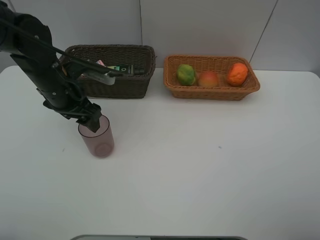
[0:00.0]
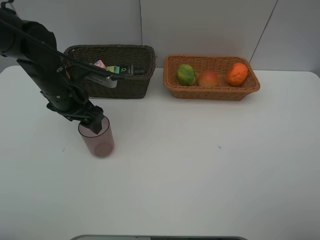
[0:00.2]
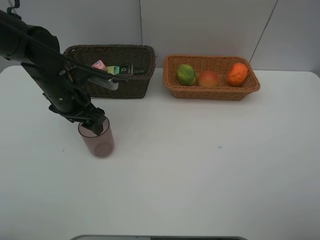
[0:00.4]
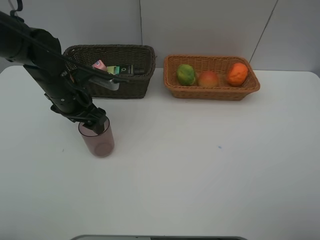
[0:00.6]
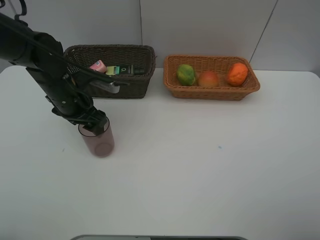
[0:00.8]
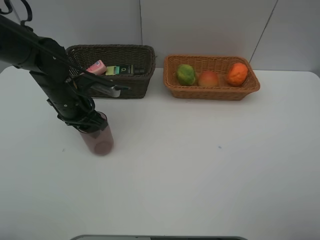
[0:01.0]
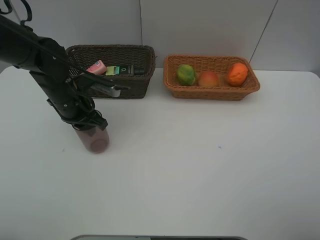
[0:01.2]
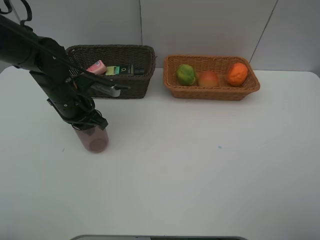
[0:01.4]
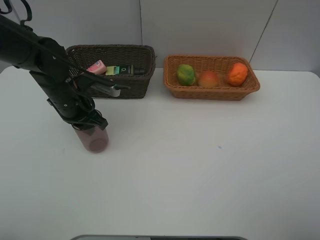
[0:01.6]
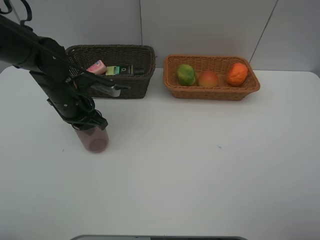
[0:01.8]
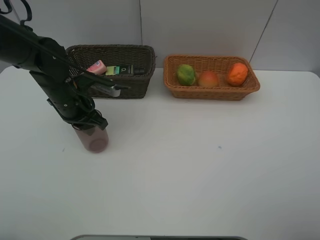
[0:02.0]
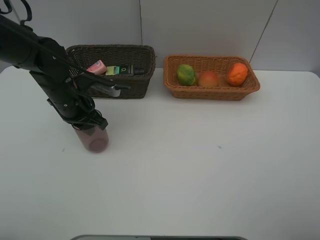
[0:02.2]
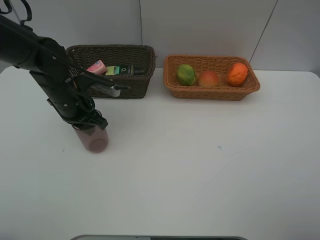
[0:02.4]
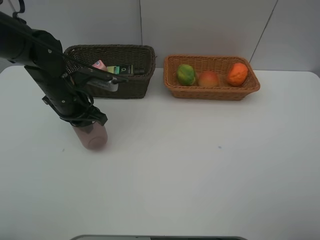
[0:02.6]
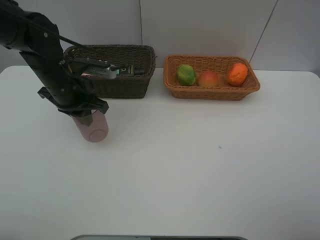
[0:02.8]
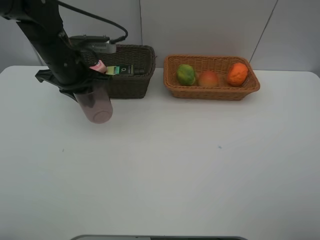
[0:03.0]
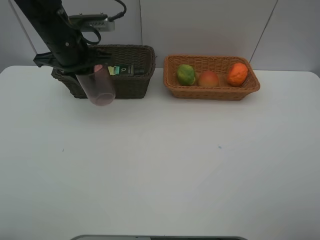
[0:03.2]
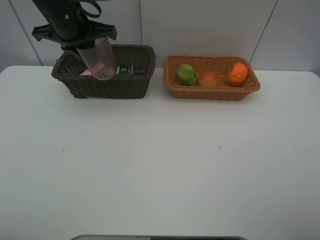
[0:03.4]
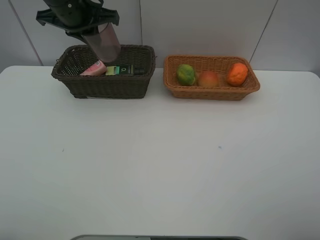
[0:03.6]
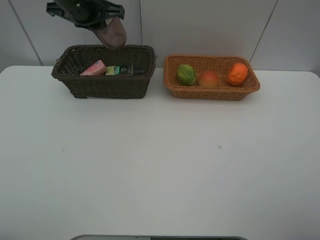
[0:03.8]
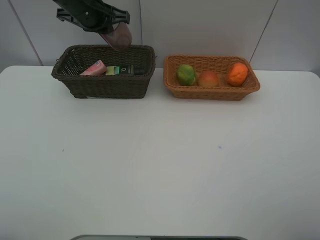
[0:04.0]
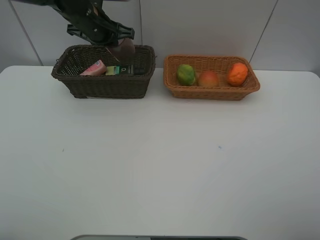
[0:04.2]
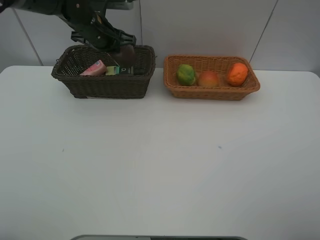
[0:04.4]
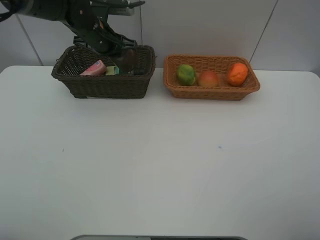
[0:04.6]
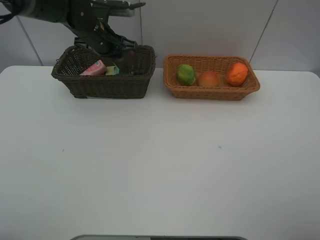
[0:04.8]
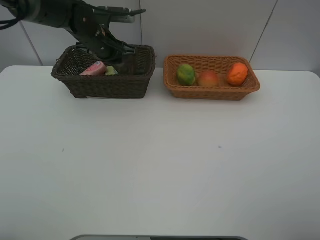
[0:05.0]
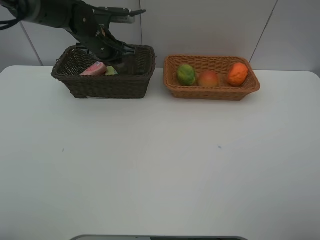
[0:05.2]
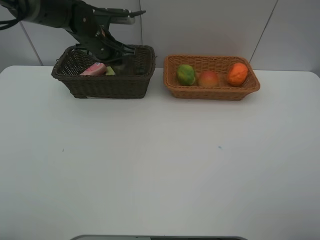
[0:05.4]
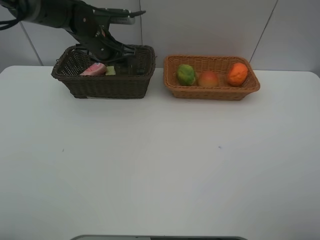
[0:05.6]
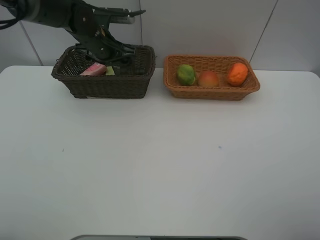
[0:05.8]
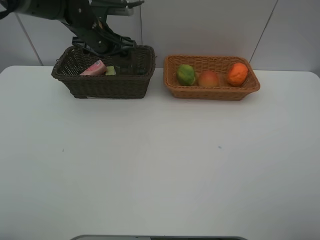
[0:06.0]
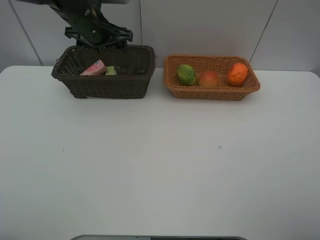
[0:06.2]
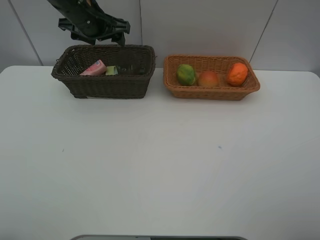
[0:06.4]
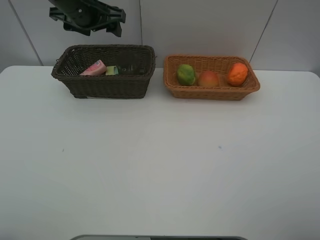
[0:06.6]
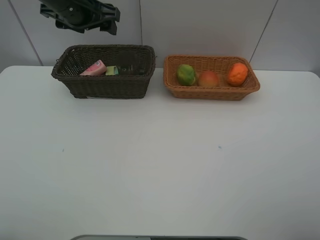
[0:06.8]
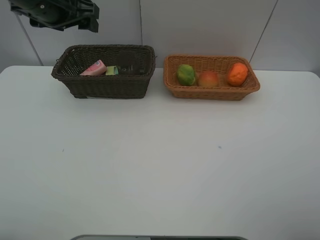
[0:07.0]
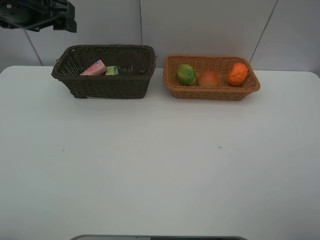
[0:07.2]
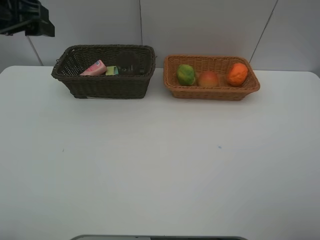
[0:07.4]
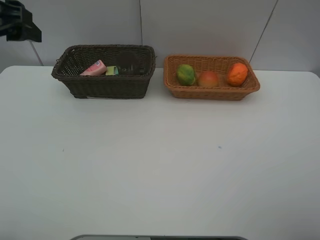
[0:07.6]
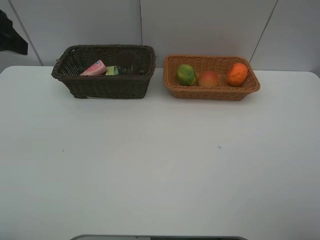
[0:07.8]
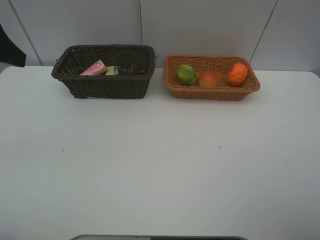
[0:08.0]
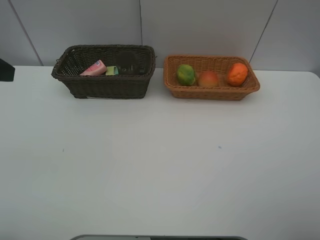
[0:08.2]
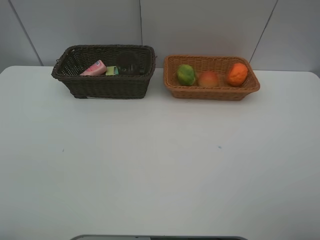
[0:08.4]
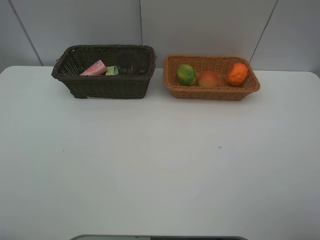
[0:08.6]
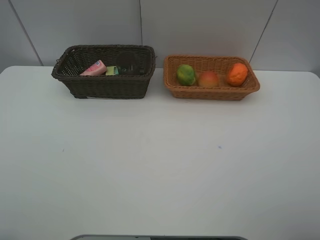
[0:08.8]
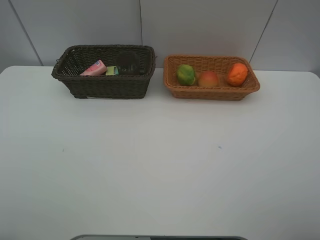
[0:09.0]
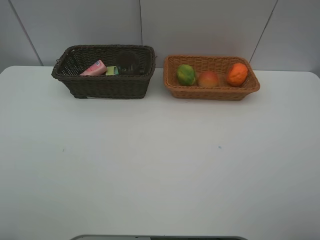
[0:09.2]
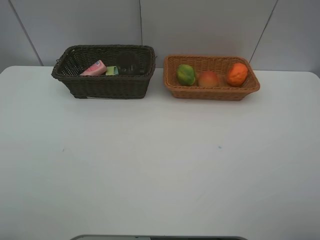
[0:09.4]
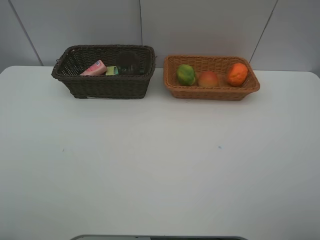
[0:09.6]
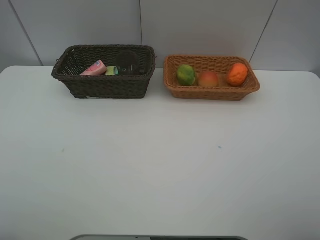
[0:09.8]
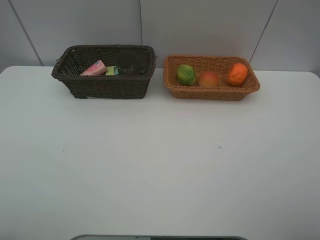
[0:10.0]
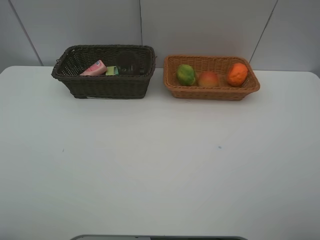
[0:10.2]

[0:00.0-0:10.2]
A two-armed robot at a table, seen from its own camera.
Task of the whole recording: place multiple objects separately in different baskets.
0:00.0 to 0:01.4: The left gripper closes its fingers.
0:01.4 to 0:03.0: The left gripper is displaced upward by roughly 10 cm.
0:03.0 to 0:04.4: The left gripper heads forward, covering some 10 cm.
0:04.4 to 0:05.8: The left gripper opens.
0:05.8 to 0:07.2: The left gripper is displaced upward, backward and to the left by some 20 cm.
0:07.2 to 0:08.8: The left gripper is displaced backward by about 25 cm.

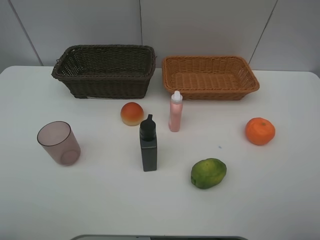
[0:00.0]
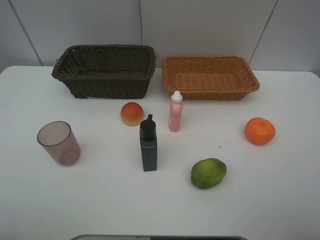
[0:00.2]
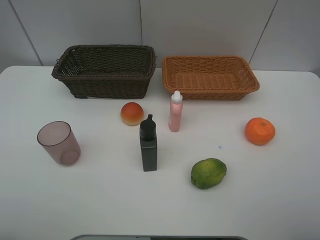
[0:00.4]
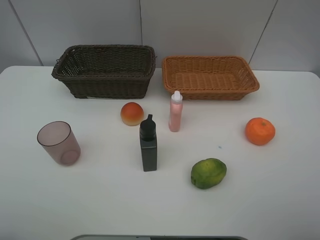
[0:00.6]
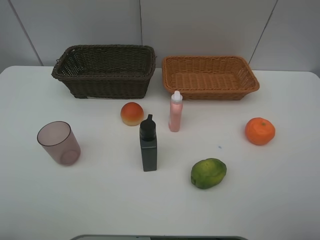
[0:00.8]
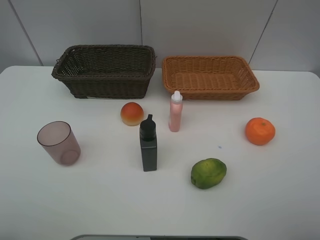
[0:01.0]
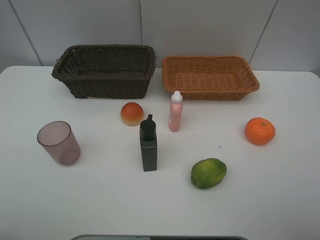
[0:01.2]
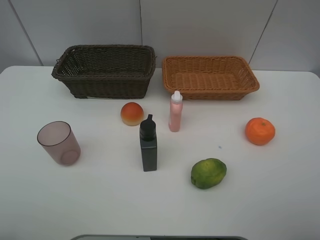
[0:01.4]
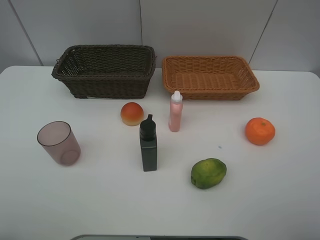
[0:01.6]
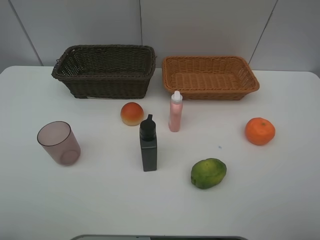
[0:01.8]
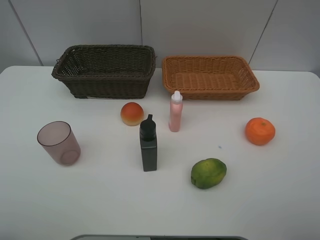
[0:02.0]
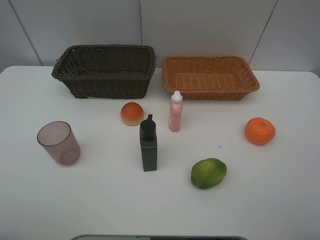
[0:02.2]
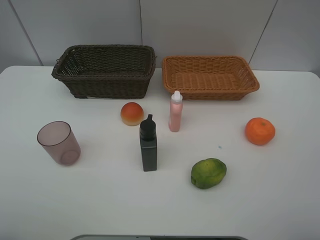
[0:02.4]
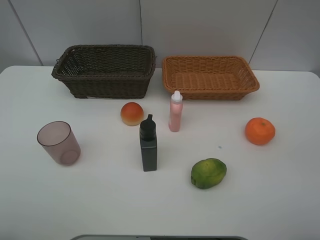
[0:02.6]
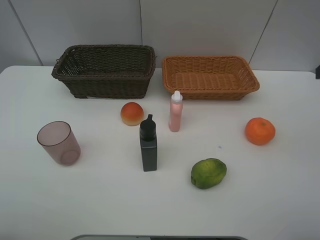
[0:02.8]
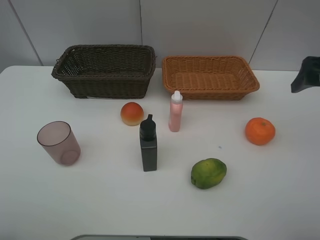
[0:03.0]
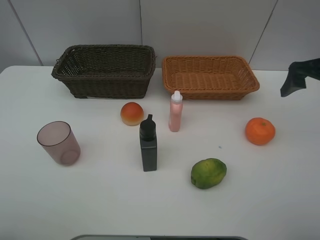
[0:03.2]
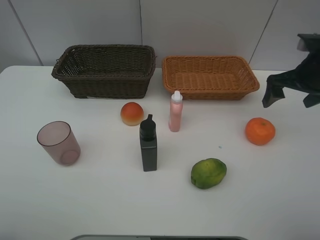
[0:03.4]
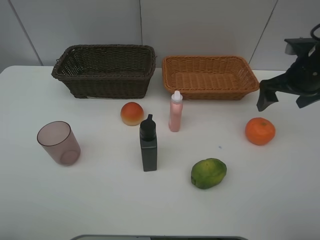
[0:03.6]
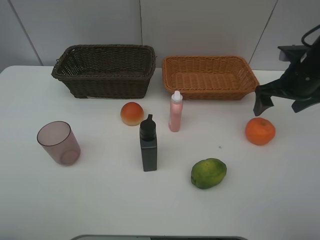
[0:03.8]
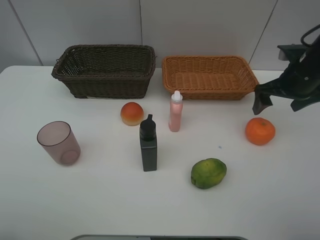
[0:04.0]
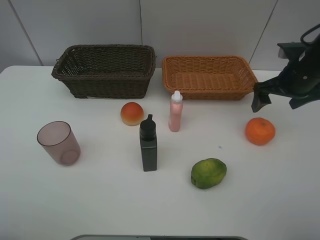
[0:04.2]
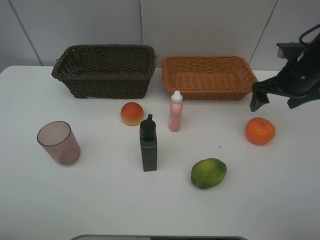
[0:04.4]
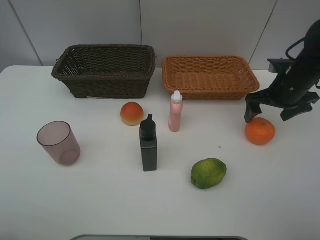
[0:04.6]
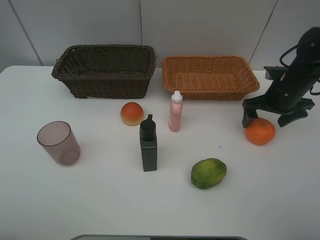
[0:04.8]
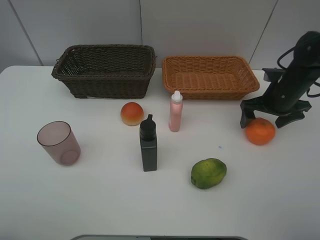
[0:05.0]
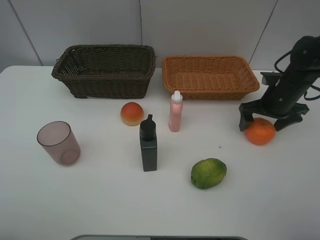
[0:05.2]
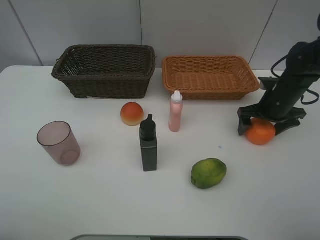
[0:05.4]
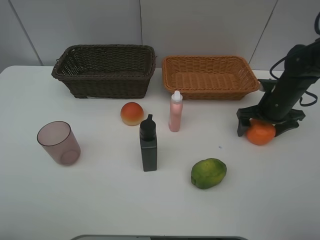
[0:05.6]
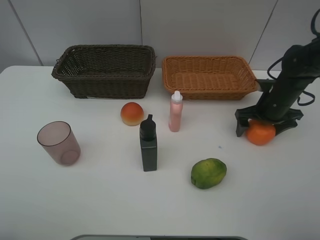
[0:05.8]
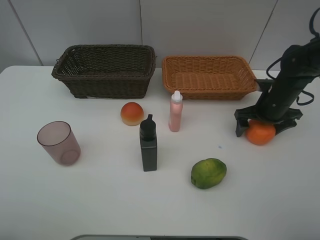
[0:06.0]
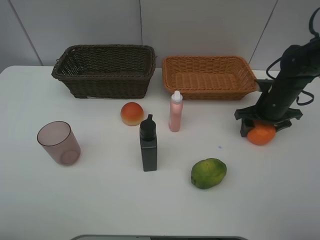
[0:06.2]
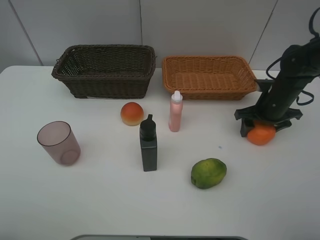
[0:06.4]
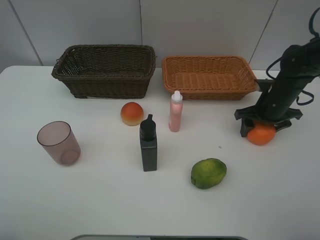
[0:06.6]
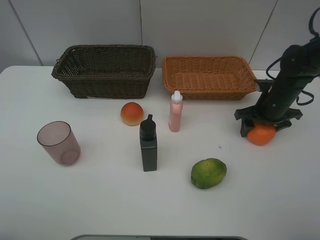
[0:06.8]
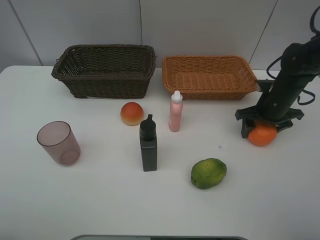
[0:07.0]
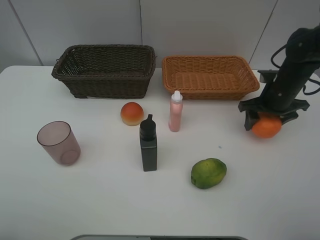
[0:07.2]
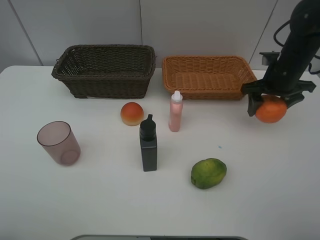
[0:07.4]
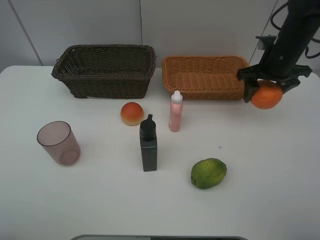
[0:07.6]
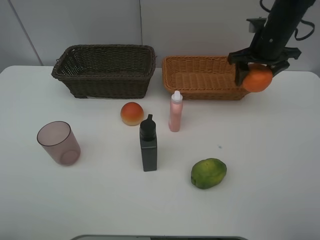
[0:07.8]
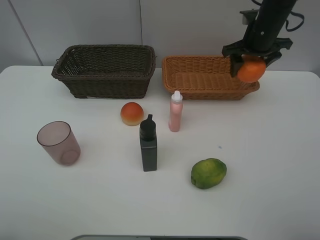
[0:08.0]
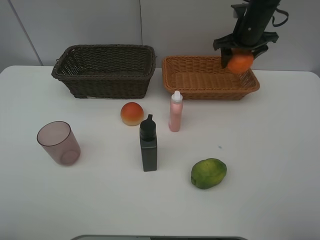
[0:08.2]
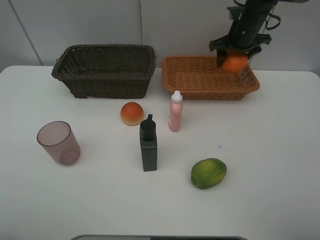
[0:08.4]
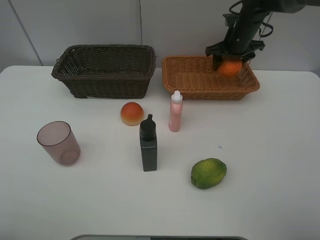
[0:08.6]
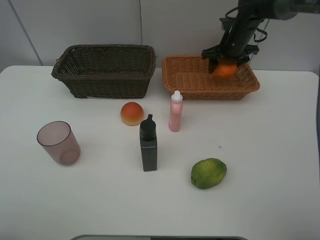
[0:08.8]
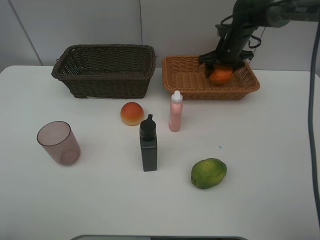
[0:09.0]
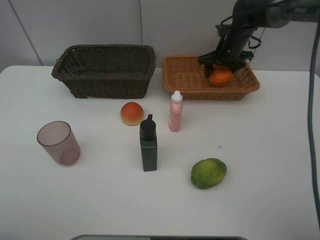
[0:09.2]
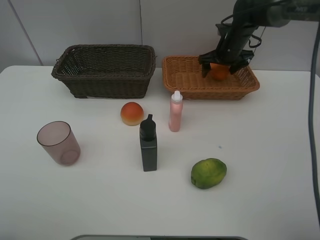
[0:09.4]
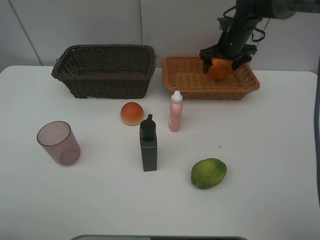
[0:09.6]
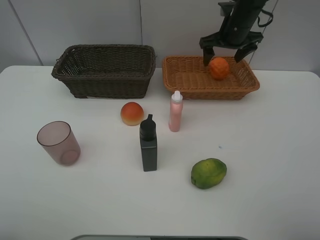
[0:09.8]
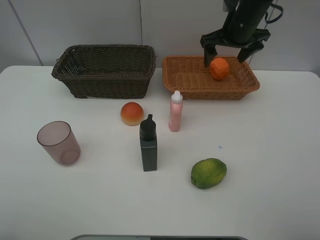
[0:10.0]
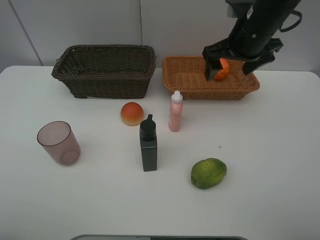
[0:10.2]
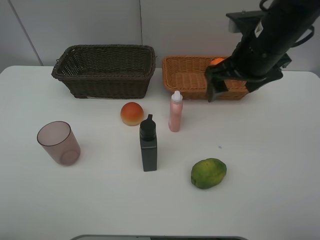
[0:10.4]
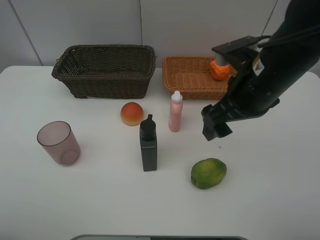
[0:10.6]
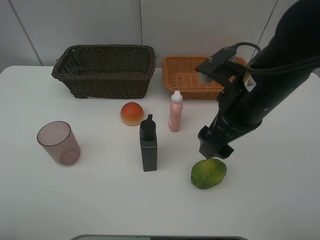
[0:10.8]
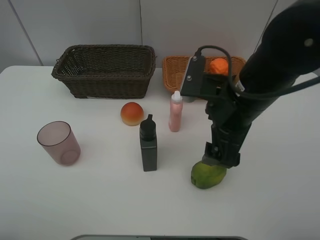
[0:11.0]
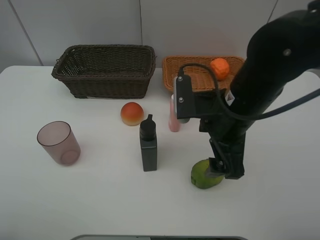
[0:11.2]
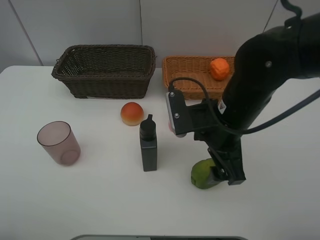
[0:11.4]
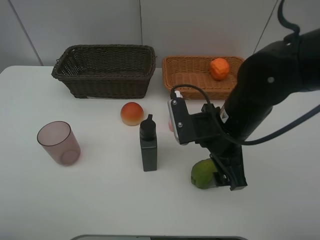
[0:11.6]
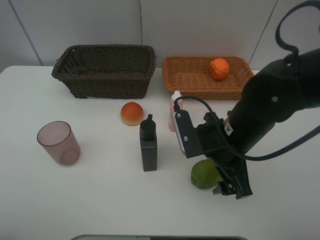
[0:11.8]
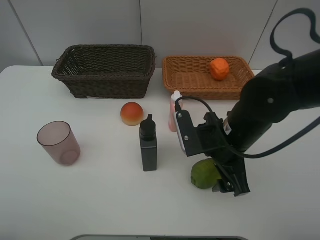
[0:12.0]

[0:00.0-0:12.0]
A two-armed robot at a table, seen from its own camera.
Task of the whole recording: place multiple objects separately in different baskets.
0:00.0 to 0:01.6: Both grippers stay put.
0:01.6 to 0:03.0: The right gripper is displaced forward by roughly 25 cm.
0:03.0 to 0:04.4: The right gripper moves downward and forward, about 10 cm.
0:04.4 to 0:06.0: The right gripper heads downward, covering about 10 cm.
0:06.0 to 0:07.6: The right gripper heads upward, covering approximately 10 cm, and closes up.
0:07.6 to 0:09.0: The right gripper is displaced forward, downward and to the left by about 15 cm.
0:09.0 to 0:10.4: The right gripper goes approximately 25 cm backward and upward, and opens up.
0:10.4 to 0:12.0: The right gripper travels downward and backward by roughly 15 cm.
